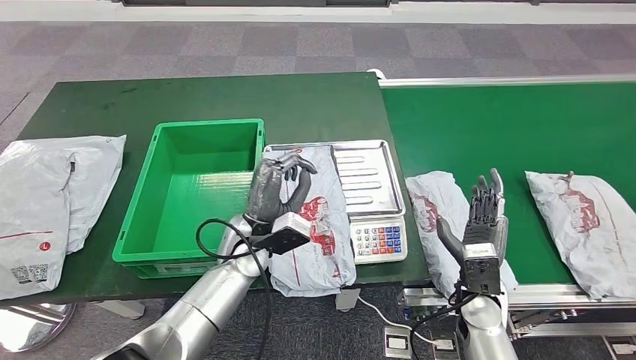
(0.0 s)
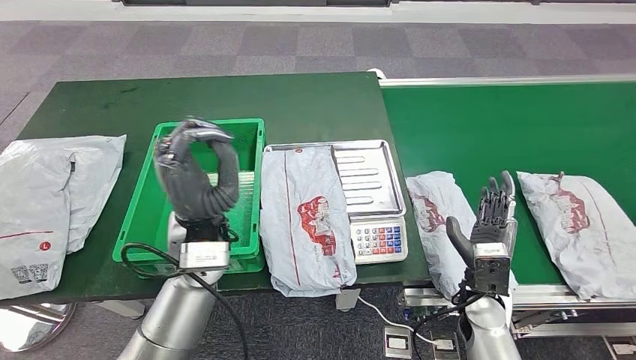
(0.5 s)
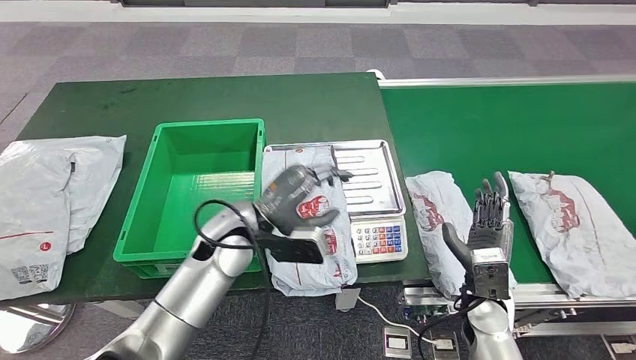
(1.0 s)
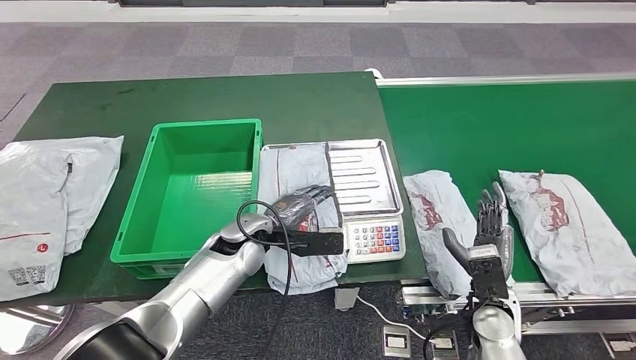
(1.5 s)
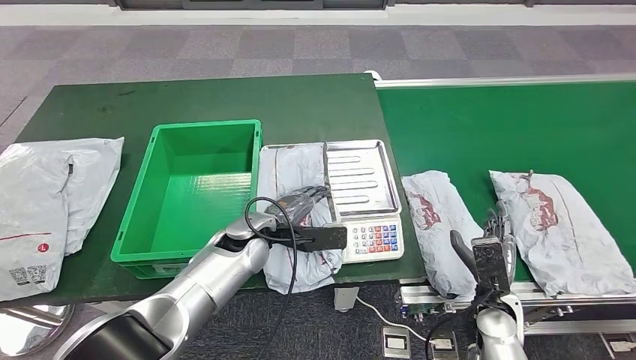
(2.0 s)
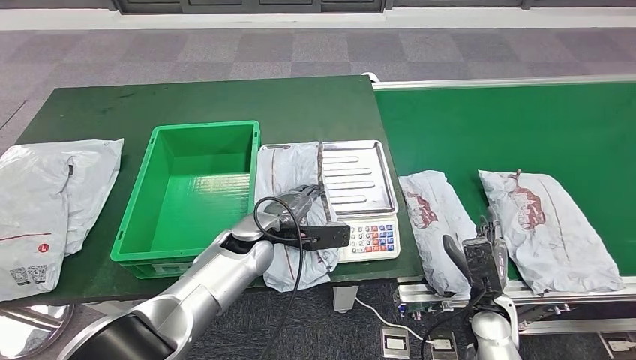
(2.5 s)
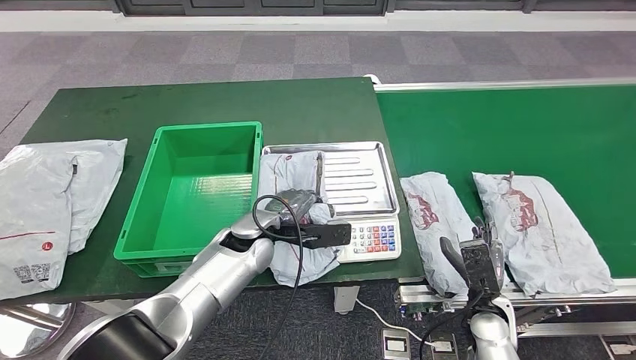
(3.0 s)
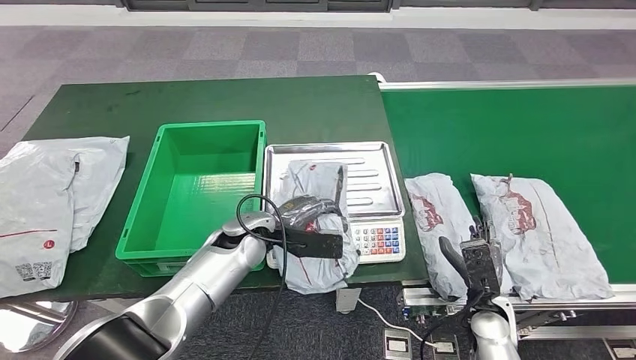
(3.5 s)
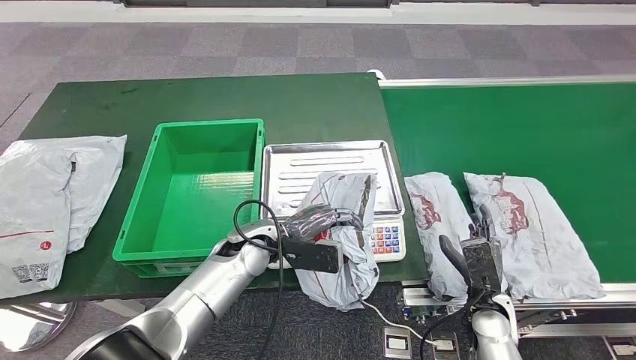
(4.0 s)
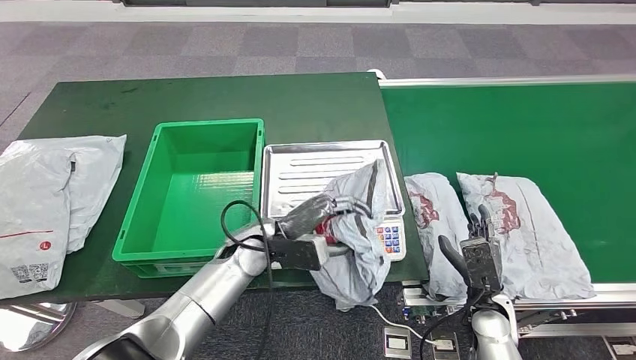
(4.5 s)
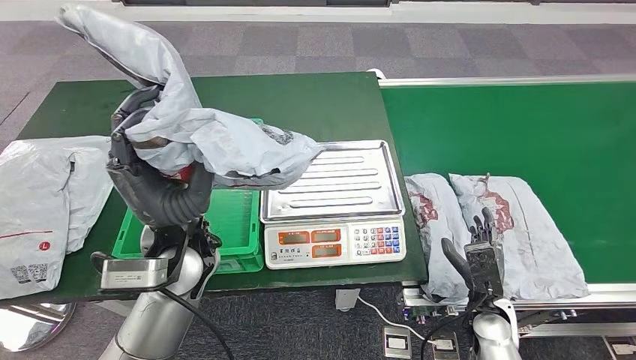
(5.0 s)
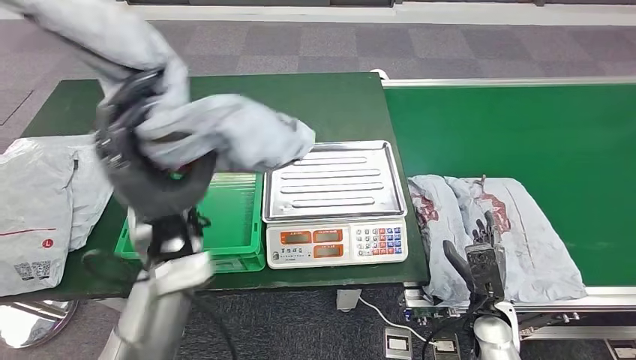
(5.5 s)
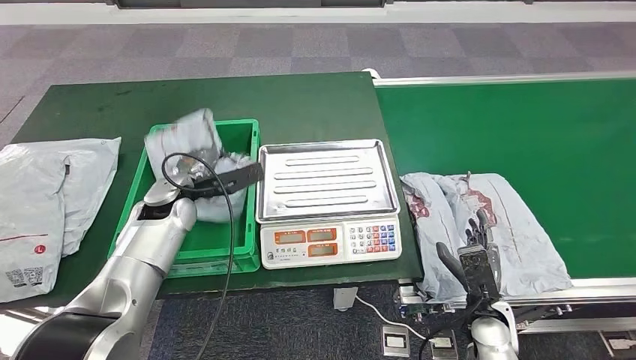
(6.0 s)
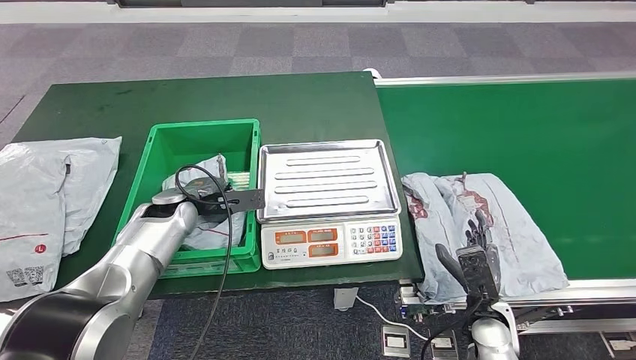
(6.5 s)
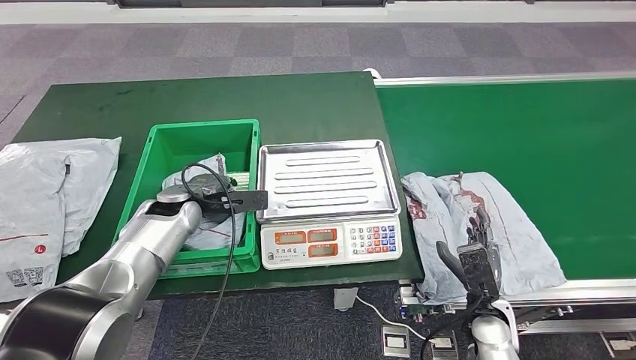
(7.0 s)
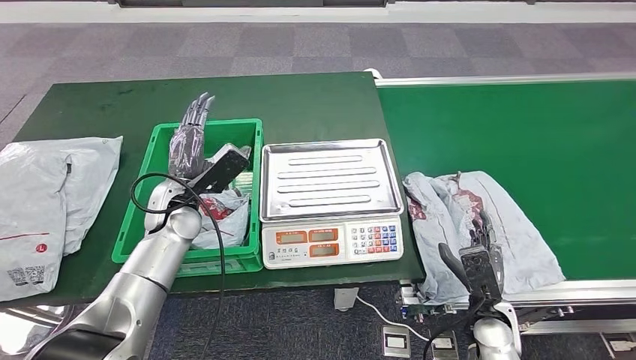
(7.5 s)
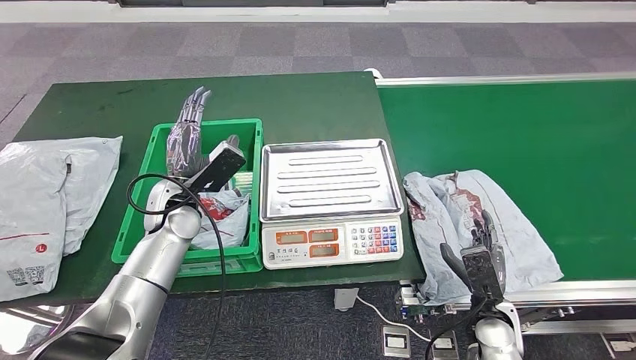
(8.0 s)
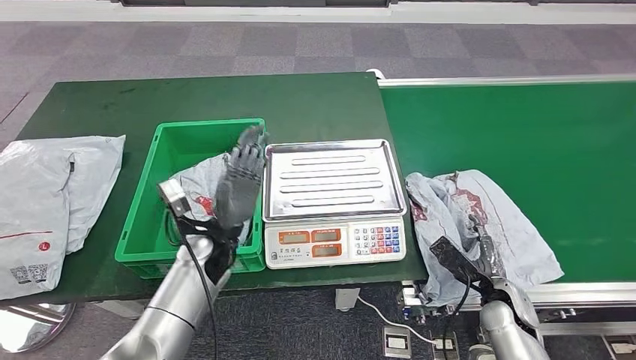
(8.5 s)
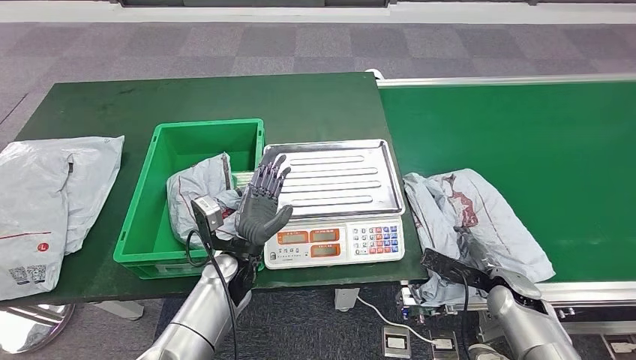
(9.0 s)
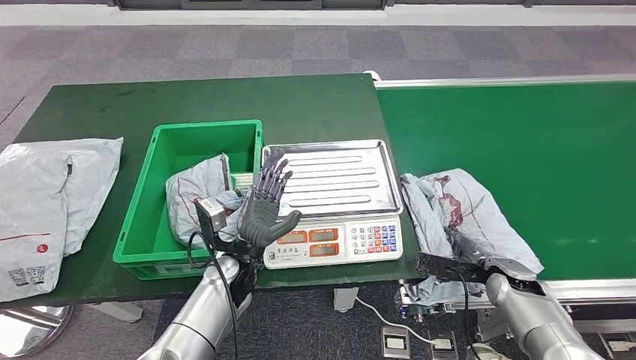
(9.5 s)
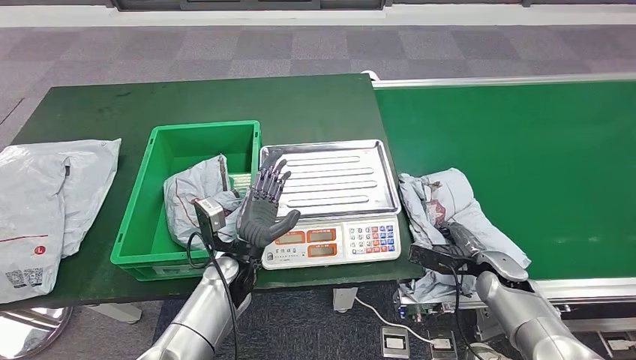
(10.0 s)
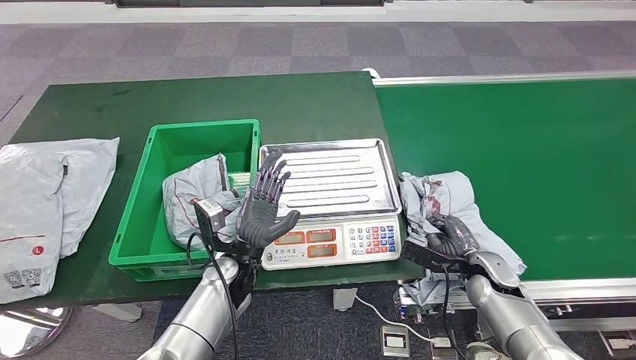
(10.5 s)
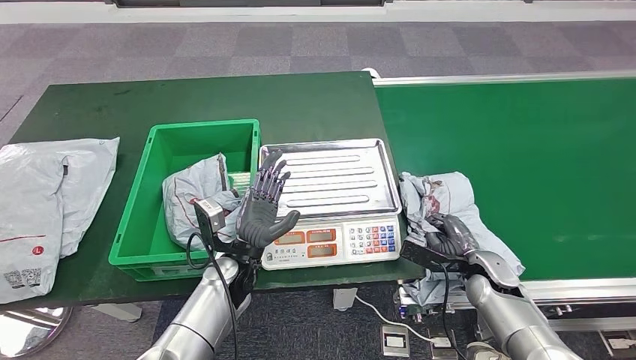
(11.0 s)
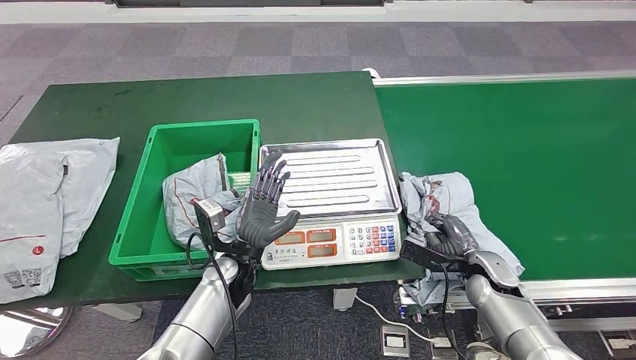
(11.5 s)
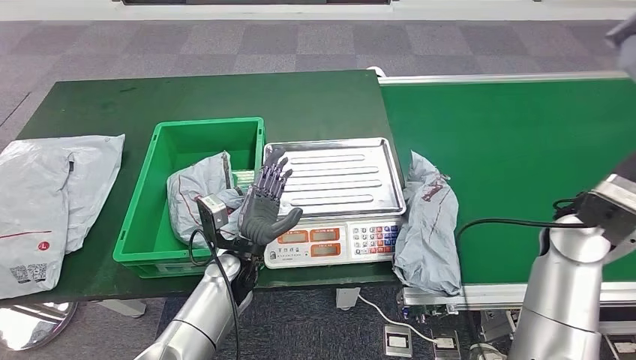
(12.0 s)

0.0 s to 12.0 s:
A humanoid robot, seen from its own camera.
Step, 3.0 to 5.5 s: Pick up the parcel from the inbound machine.
Step, 6.0 to 8.5 s: Put the parcel inside the courier box.

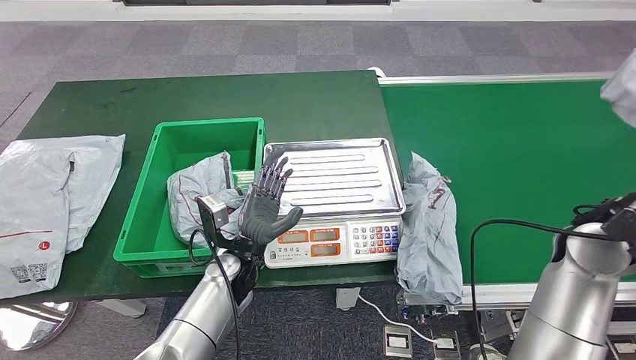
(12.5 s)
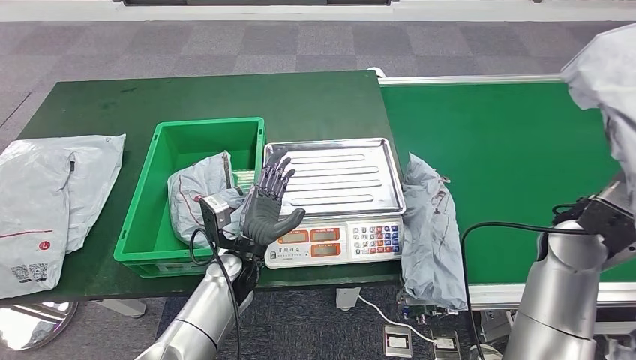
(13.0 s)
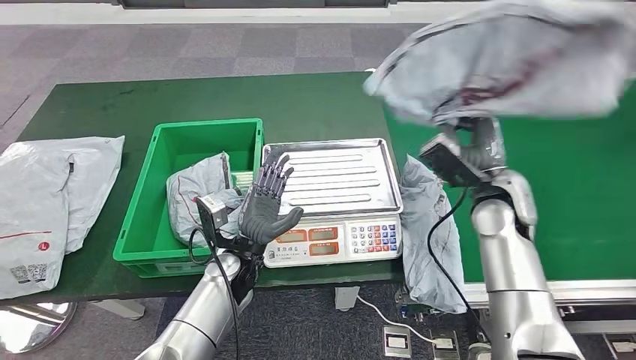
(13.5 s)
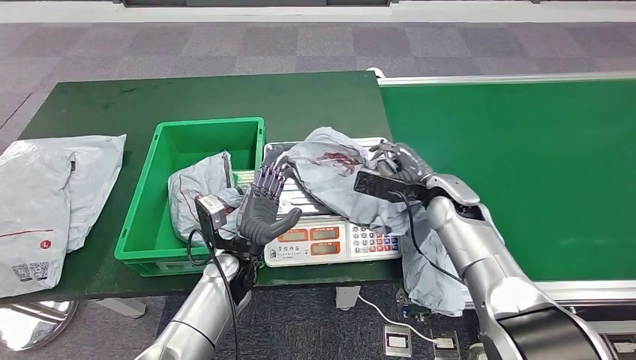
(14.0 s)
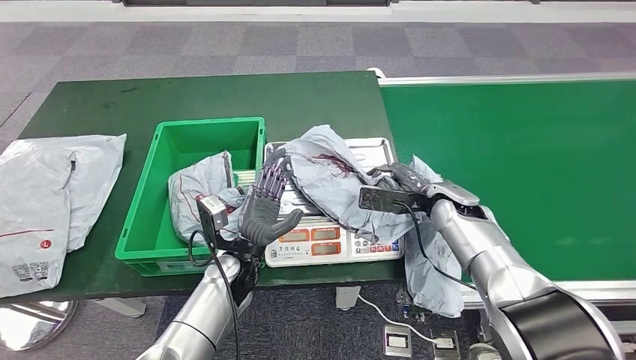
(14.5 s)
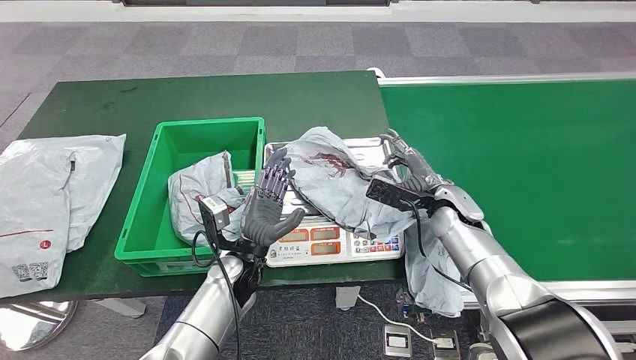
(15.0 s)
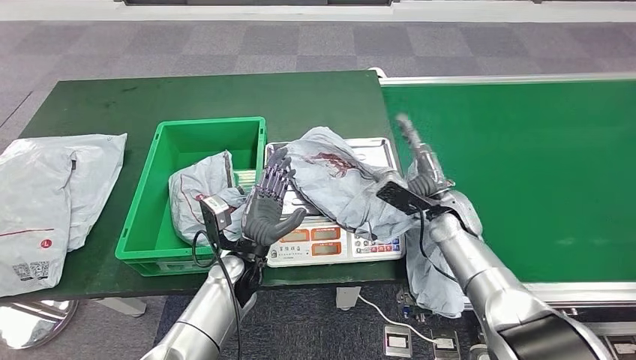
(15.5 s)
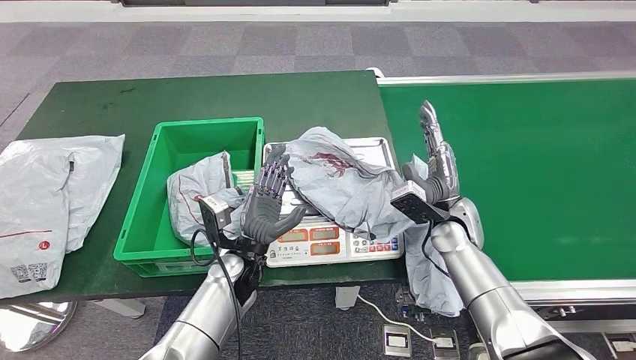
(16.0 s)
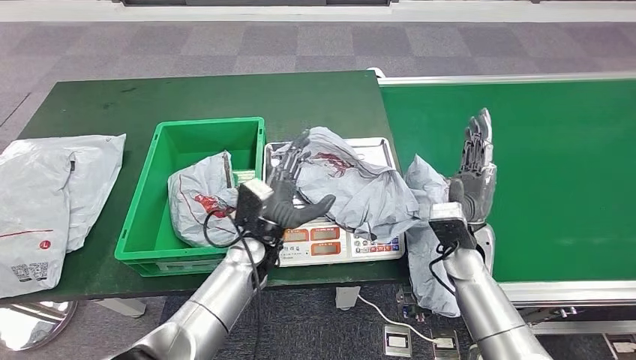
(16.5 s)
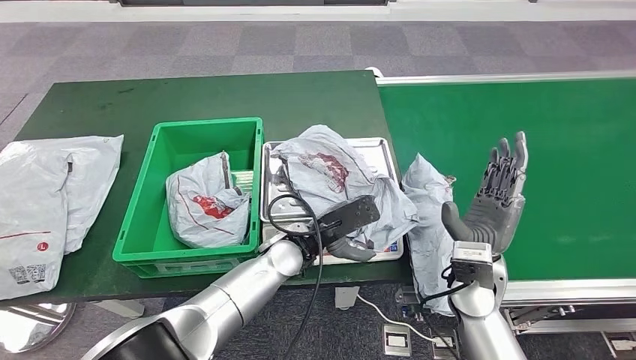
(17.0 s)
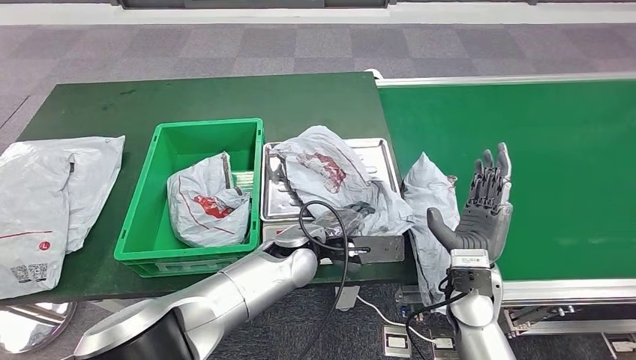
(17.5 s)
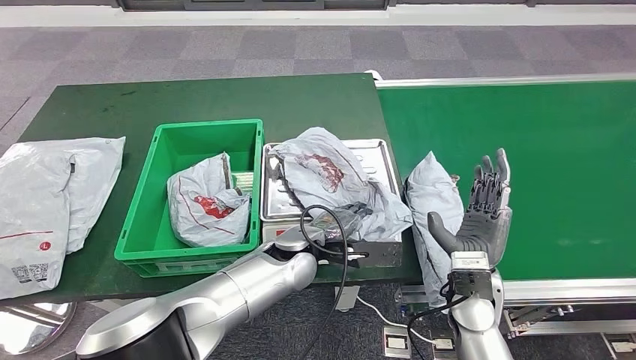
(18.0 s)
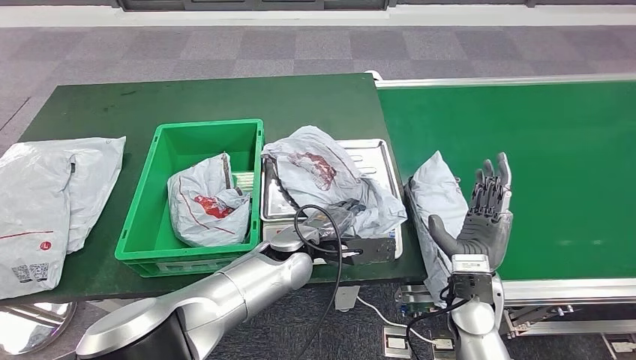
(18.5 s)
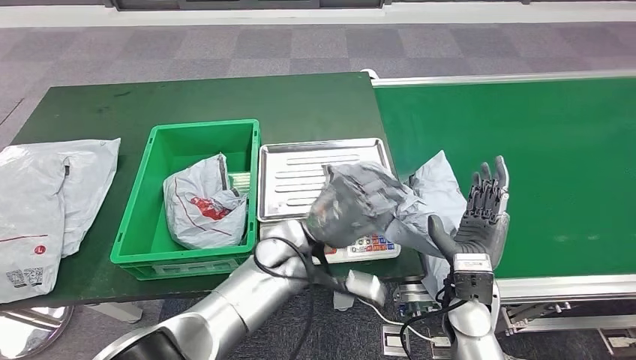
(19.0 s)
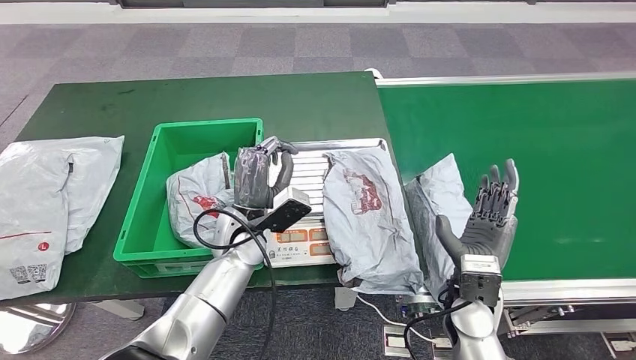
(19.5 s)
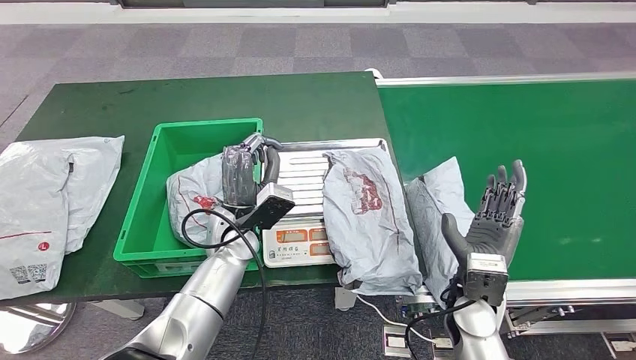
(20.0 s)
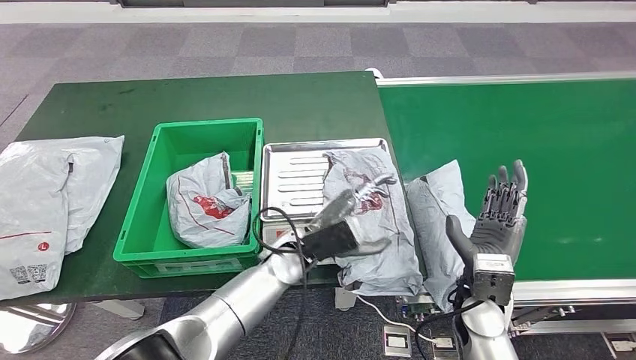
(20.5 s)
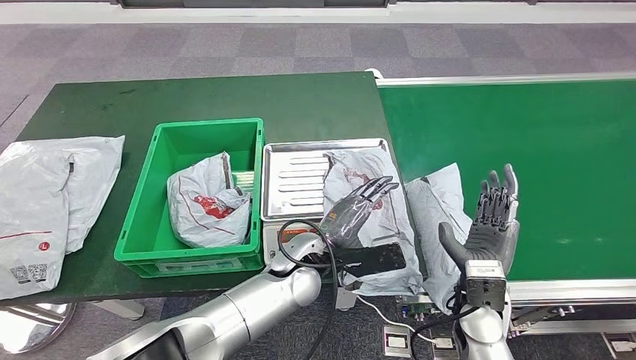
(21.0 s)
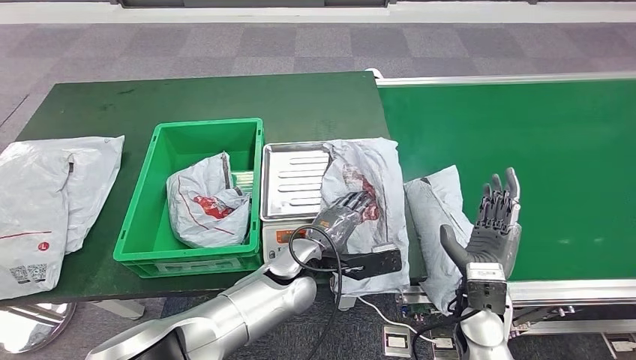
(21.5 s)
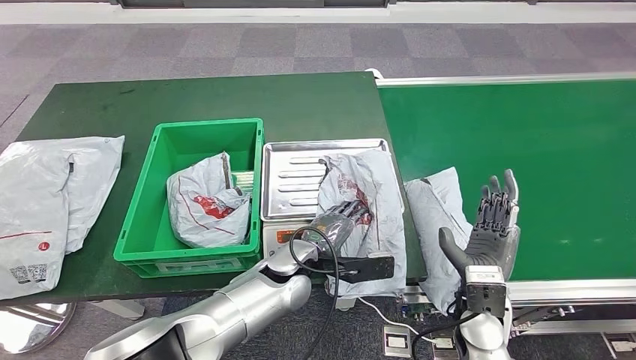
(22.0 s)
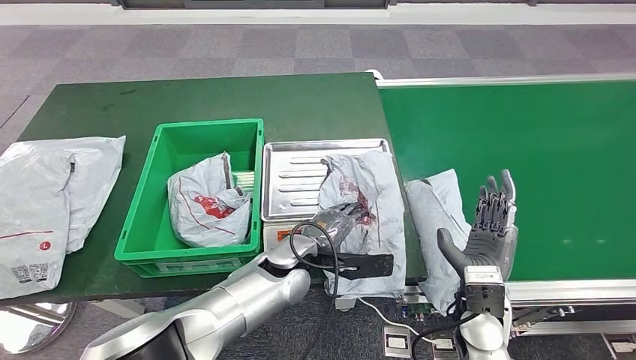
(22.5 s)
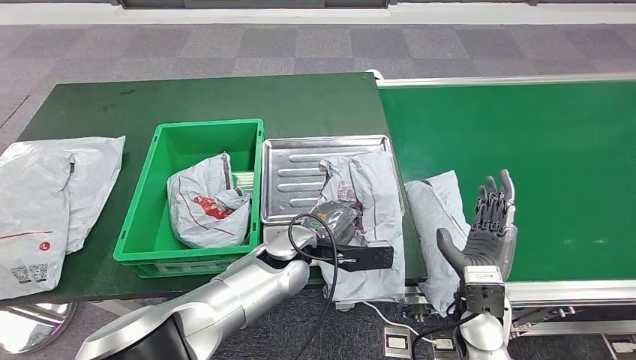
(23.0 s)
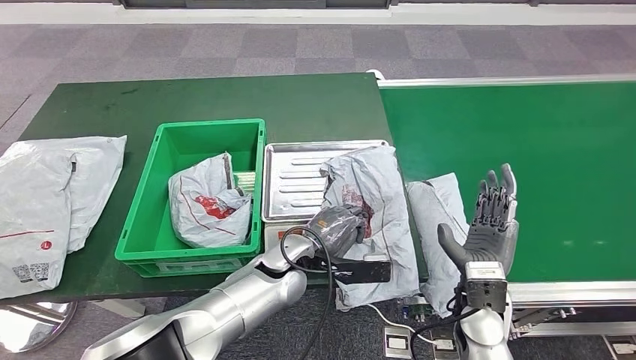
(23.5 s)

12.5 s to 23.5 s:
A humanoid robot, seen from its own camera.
Step, 13.5 to 17.0 s: Place the parcel onto the inbound machine.
12.5 to 14.5 s: The right hand heads forward, downward and to the left, covering approximately 25 cm.
20.0 to 21.5 s: The left hand goes roughly 10 cm to the right.
21.5 to 23.5 s: There are only small adjustments of the hands.
